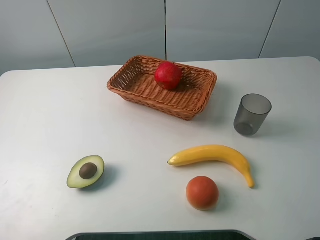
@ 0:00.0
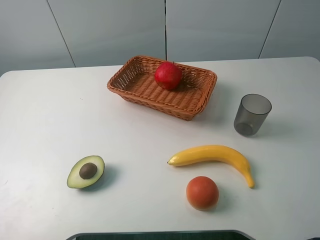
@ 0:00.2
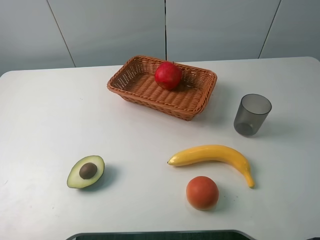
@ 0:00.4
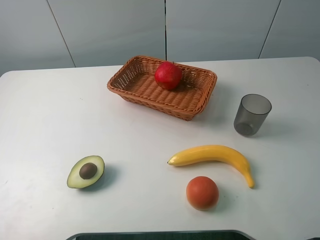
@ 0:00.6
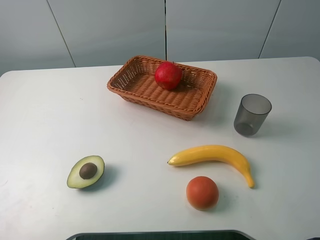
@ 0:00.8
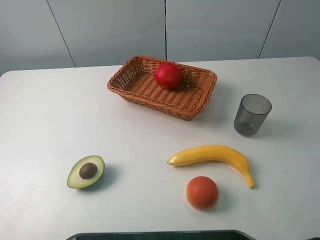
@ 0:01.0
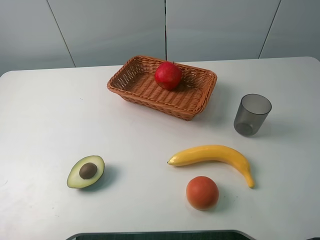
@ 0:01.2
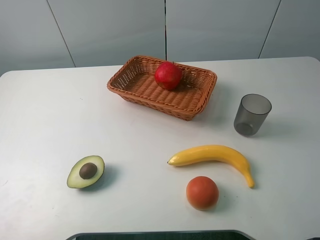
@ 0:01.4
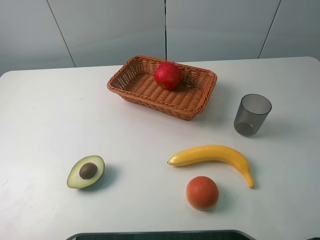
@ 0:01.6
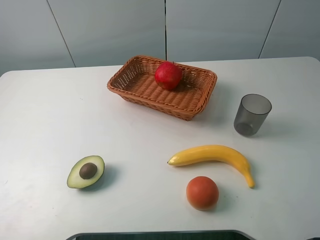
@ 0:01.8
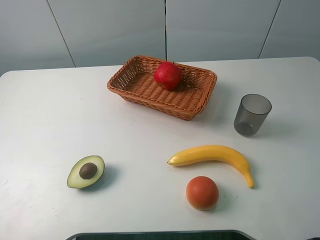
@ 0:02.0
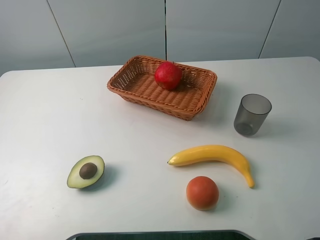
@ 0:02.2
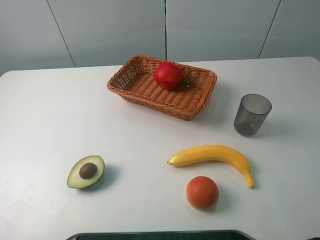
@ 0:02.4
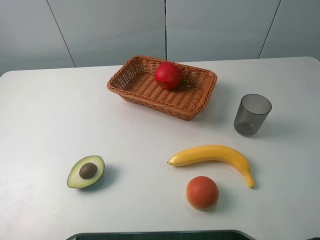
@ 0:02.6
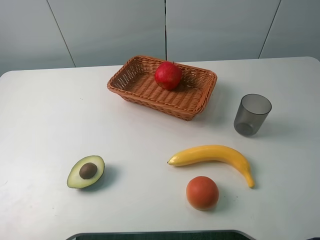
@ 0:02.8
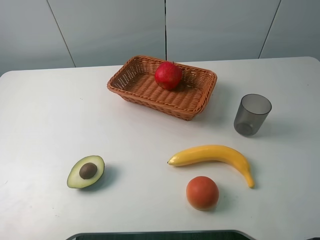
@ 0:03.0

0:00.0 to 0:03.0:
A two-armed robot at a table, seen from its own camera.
Task of the whole recording: randomly pick up an item from the table and put it in the basket.
0:01.6 to 0:03.0: Both grippers stay put.
